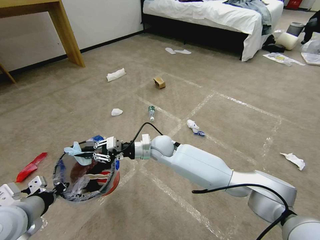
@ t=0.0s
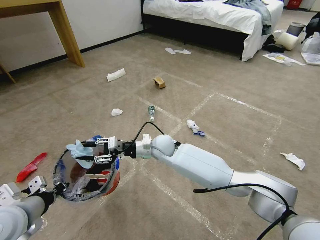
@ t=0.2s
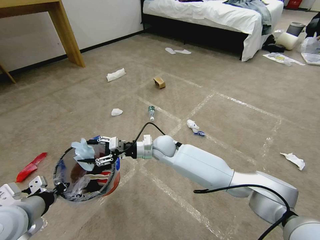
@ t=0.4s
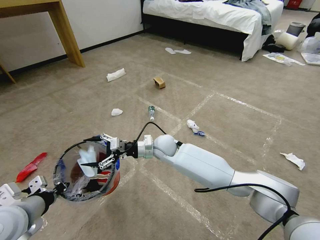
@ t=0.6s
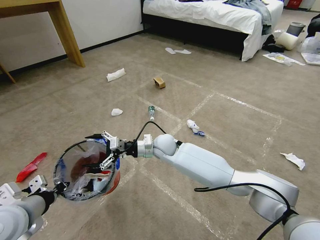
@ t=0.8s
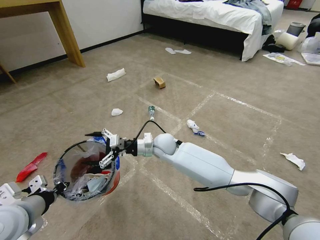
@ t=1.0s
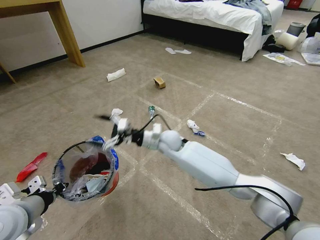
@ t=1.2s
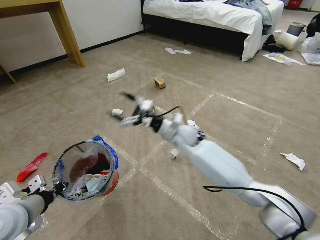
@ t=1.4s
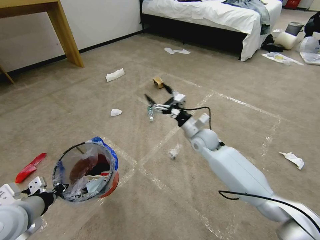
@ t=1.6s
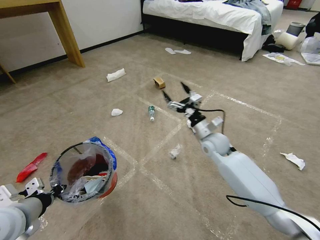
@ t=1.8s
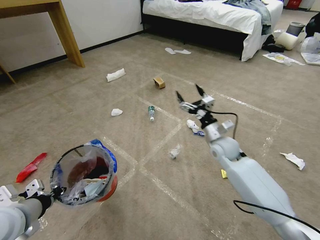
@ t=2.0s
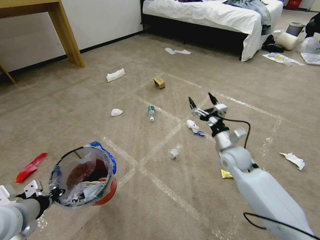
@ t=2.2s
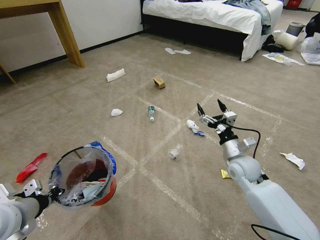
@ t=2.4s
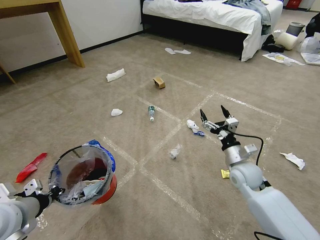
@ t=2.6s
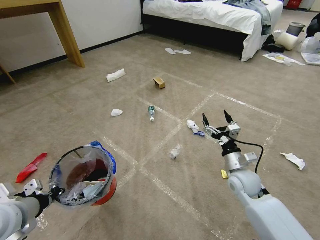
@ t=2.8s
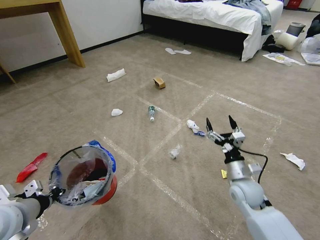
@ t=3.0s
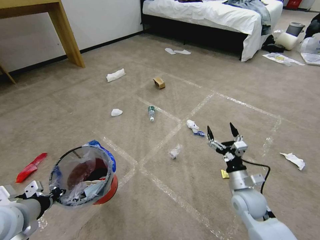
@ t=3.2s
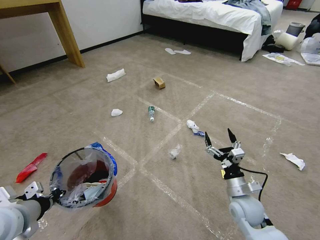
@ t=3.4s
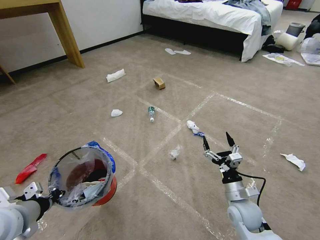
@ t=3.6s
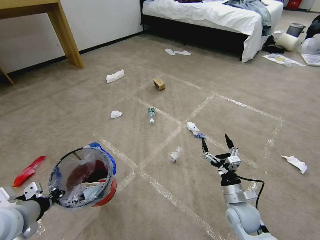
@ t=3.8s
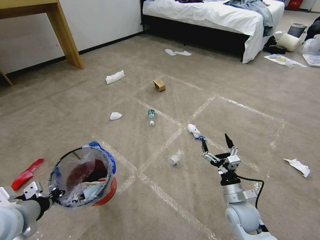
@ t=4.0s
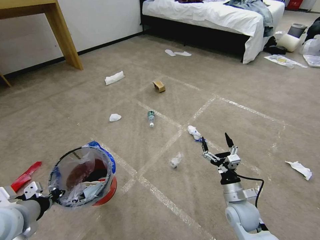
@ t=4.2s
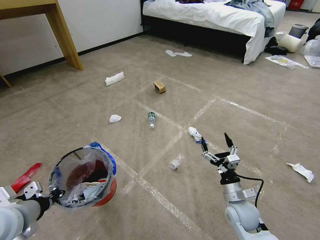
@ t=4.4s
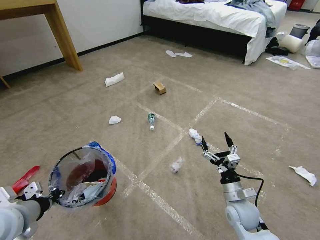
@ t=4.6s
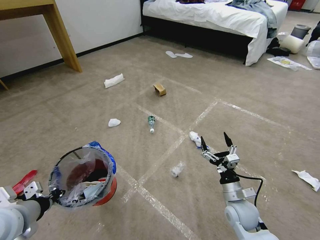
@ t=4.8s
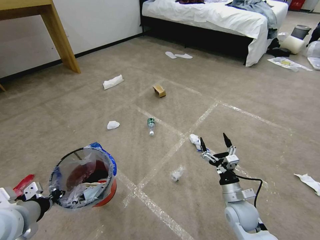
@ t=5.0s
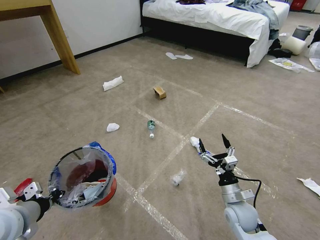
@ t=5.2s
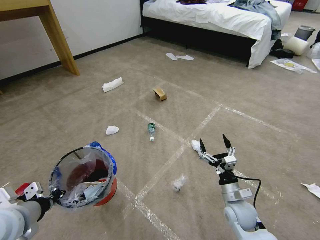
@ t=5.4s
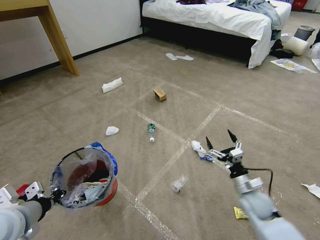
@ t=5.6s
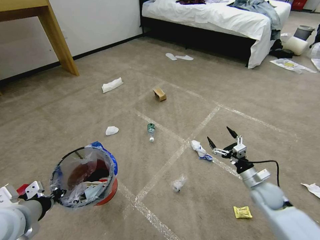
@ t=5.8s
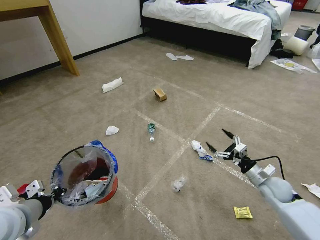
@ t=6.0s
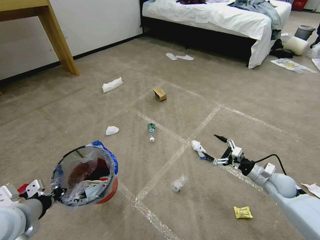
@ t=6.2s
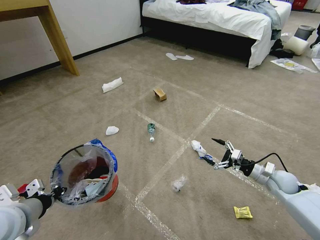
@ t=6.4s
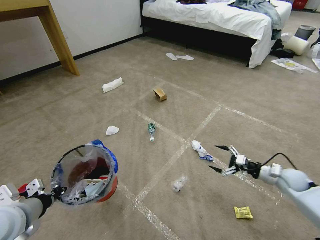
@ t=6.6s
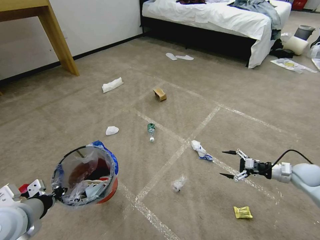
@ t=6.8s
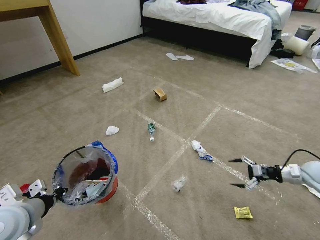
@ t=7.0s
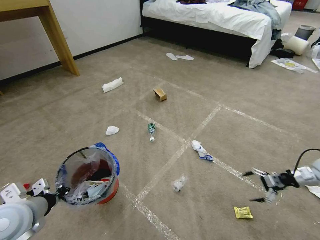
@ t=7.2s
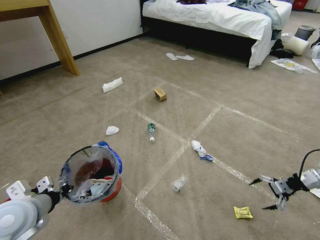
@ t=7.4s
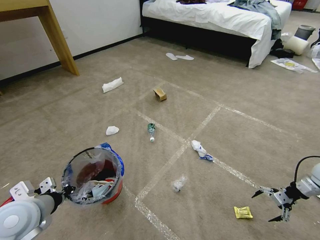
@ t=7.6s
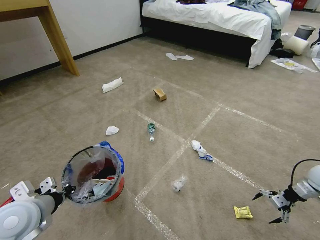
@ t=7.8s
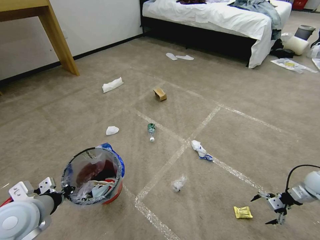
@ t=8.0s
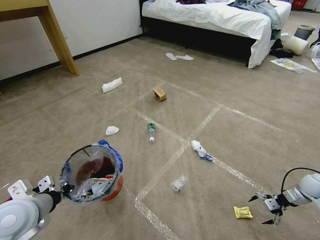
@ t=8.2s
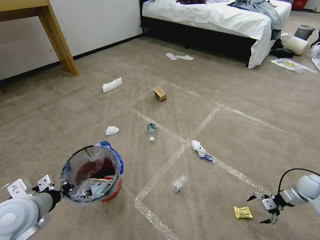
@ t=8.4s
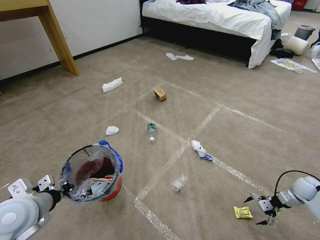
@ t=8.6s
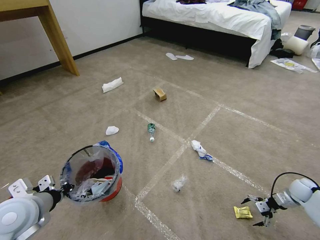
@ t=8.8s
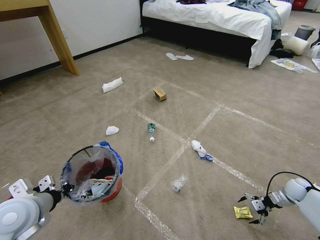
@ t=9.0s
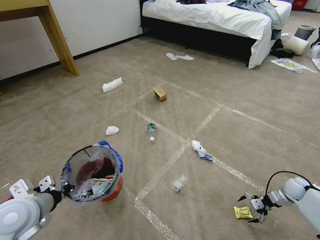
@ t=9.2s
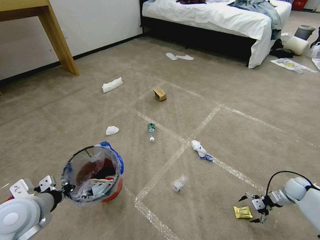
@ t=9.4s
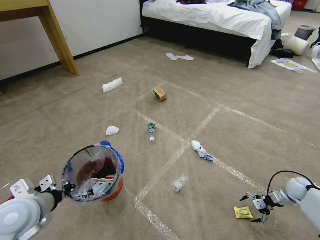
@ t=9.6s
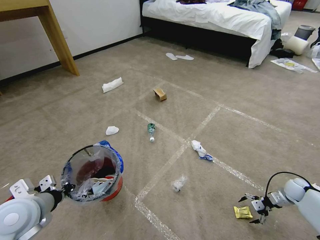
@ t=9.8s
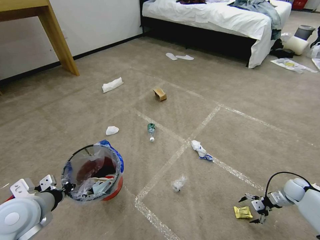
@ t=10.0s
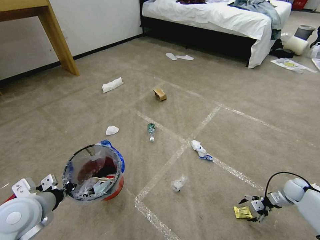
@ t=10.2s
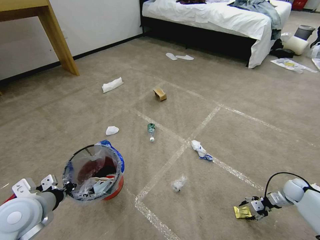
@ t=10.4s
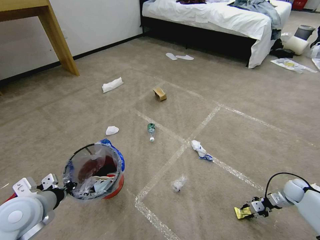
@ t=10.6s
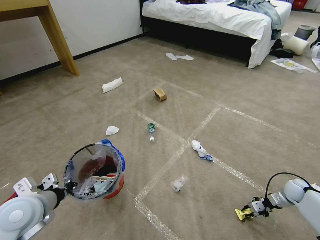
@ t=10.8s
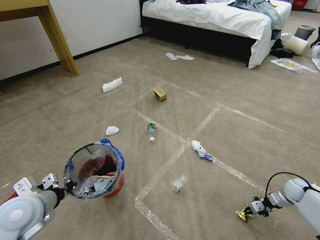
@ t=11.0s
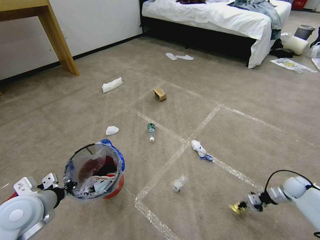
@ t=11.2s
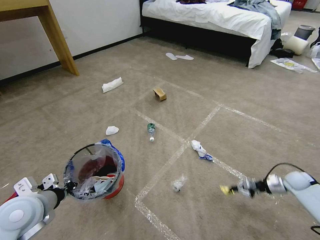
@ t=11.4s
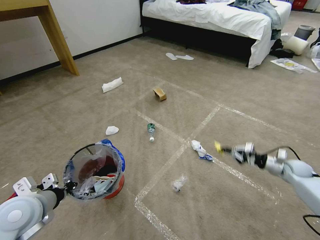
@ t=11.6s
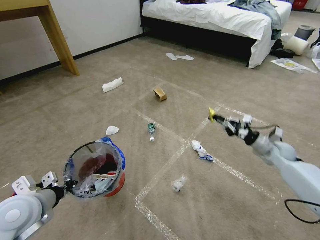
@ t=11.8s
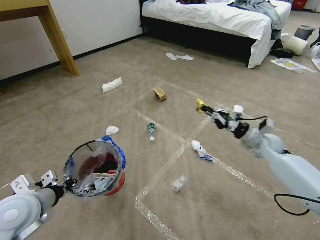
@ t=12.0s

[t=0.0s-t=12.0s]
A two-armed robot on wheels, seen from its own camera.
Task of the whole recording: Pick up the trash bin and place the garbage on the floor into it.
t=0.0s to t=1.6s: The right gripper travels to the right by about 15 cm, and opens up.
t=1.6s to t=3.0s: The right gripper goes approximately 20 cm backward, to the right and downward.
t=3.0s to t=4.4s: The right gripper is displaced downward and backward by some 5 cm.
t=4.4s to t=6.0s: The right gripper travels to the right and forward by roughly 15 cm.
t=6.0s to t=7.6s: The right gripper is displaced to the right by roughly 20 cm.
t=7.6s to t=9.0s: The right gripper goes approximately 15 cm downward.
t=9.0s to t=10.4s: The right gripper closes up.
t=10.4s to t=12.0s: The right gripper shifts roughly 25 cm upward, to the left and forward, and closes.

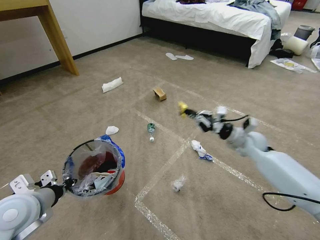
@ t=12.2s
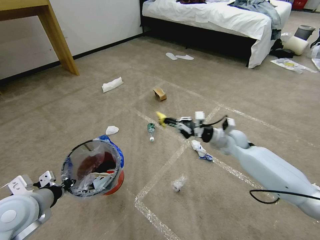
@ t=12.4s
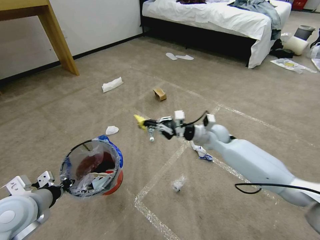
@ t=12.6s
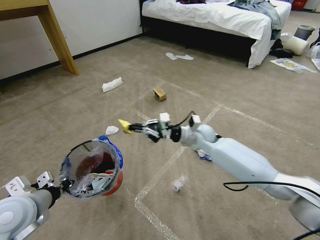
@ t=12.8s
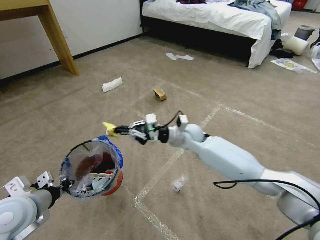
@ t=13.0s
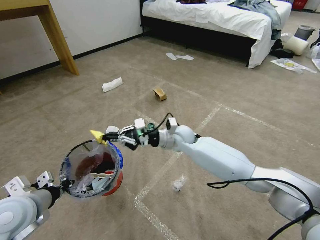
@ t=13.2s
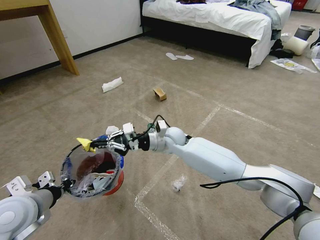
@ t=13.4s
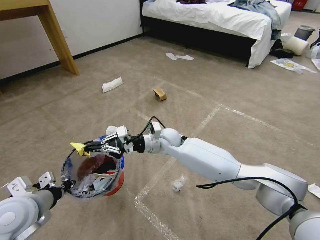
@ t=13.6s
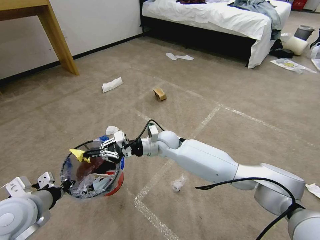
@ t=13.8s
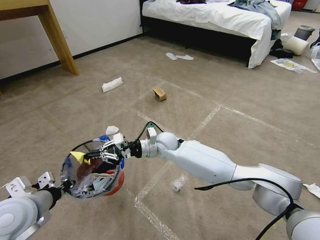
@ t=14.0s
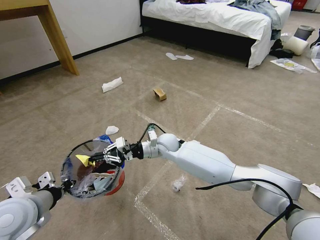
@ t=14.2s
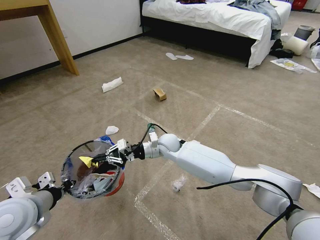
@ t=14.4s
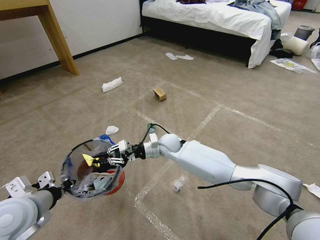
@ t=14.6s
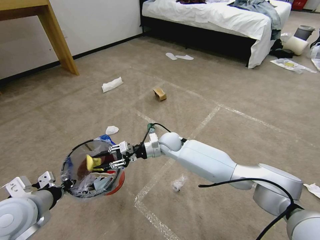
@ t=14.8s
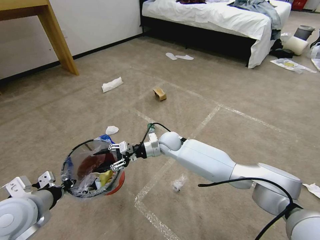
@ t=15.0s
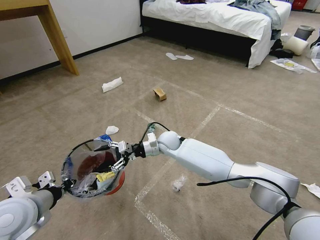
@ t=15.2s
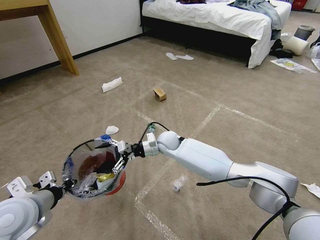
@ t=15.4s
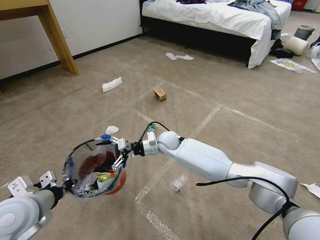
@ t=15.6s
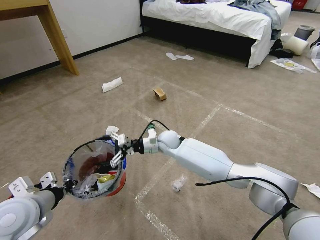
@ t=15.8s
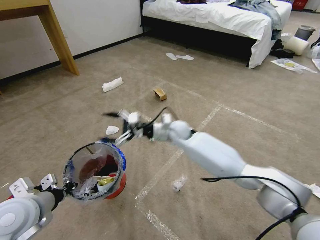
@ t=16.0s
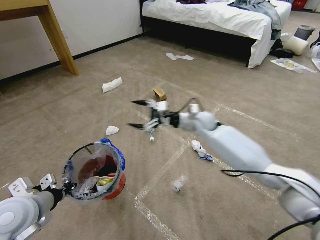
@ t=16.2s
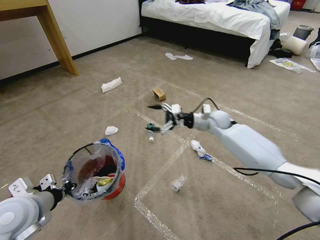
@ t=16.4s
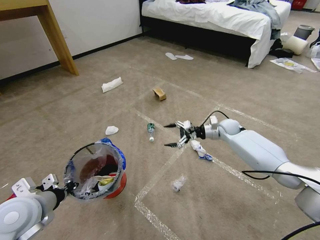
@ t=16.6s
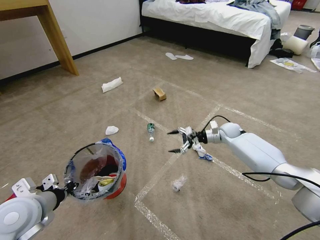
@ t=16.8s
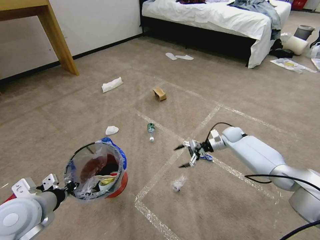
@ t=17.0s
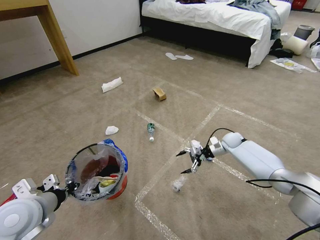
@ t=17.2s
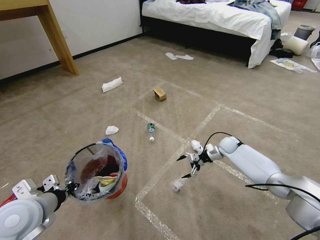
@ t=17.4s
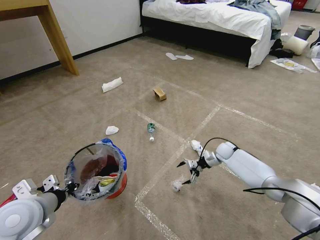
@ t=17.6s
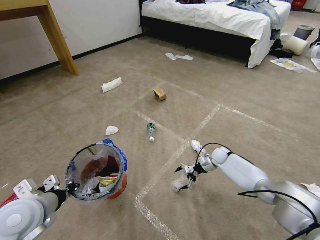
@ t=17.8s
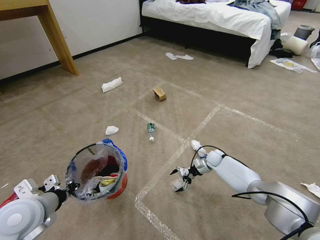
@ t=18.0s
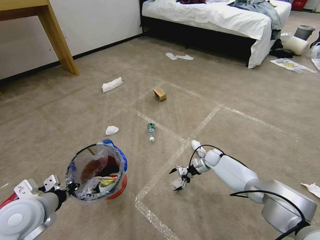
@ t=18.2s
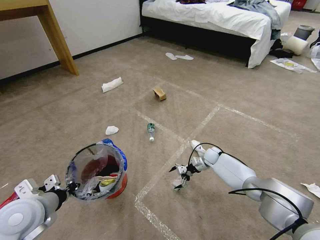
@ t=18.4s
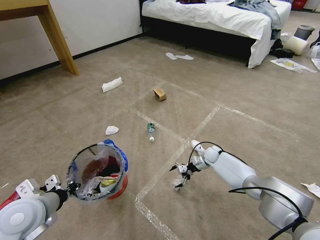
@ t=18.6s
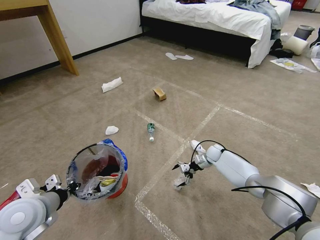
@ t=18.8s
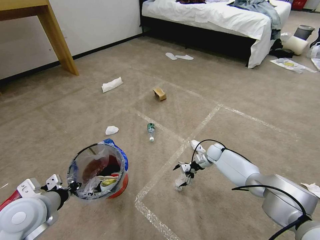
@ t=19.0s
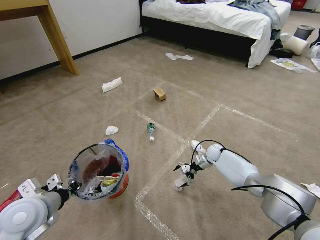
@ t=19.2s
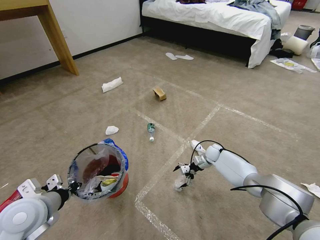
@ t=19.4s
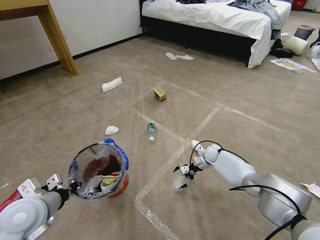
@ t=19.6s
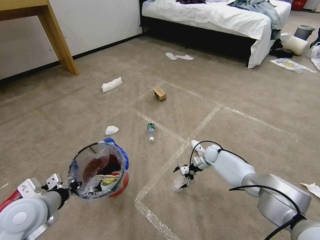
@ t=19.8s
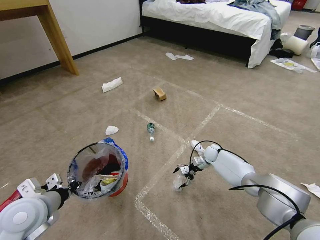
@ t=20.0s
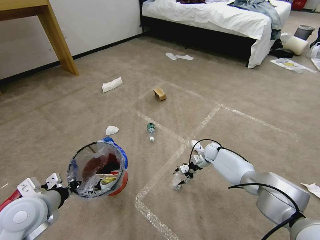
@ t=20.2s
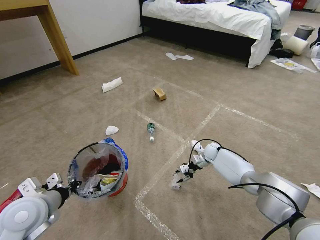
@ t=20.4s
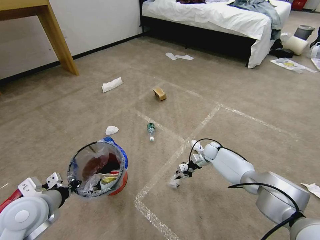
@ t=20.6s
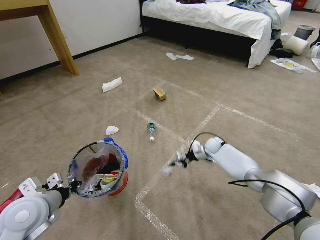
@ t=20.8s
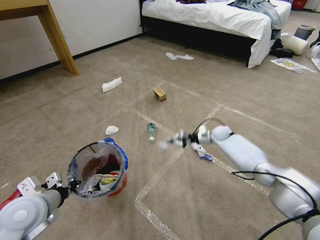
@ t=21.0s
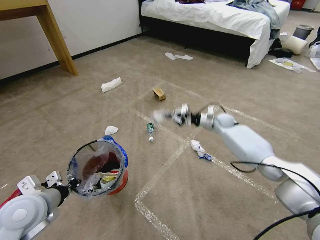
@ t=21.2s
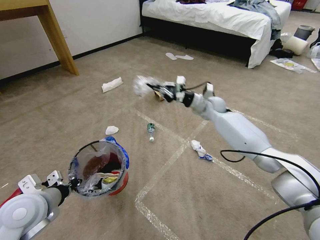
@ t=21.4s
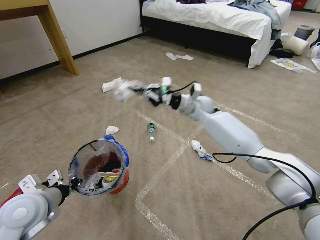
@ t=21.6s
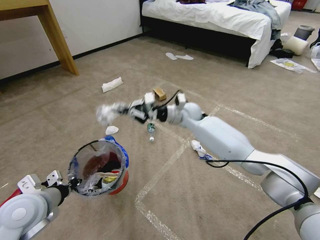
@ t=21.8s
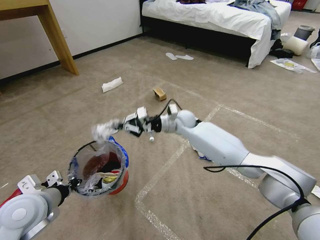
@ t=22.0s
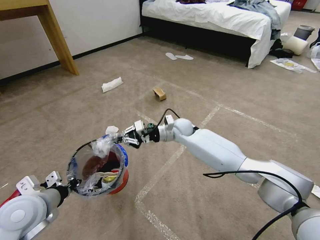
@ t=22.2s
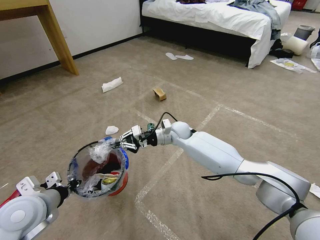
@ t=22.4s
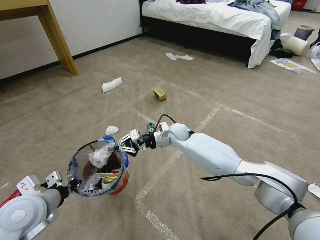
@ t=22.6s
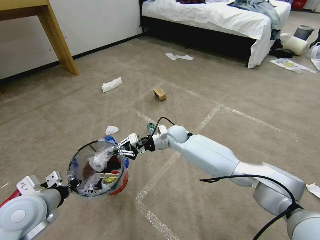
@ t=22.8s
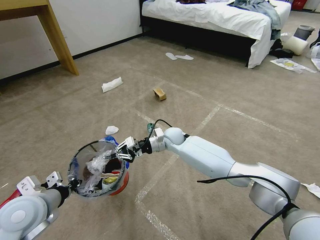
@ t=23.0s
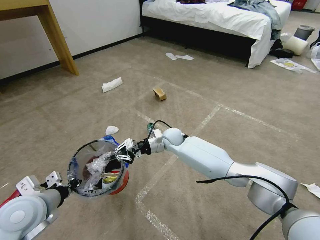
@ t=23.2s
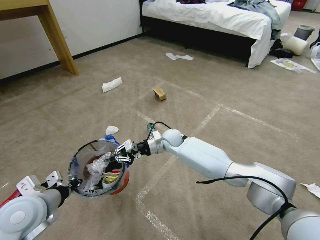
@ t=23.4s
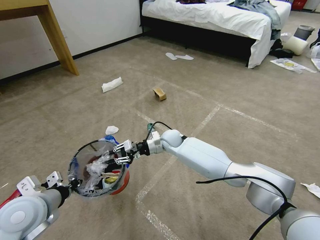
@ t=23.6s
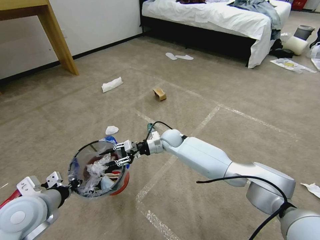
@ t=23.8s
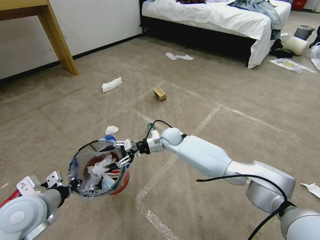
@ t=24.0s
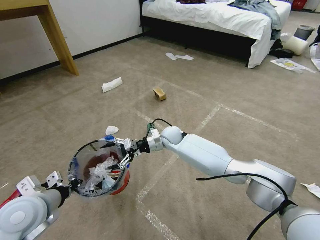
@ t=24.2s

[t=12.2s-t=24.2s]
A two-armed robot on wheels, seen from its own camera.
Task of the whole recording: Pick up the trash bin and place the garbage on the floor into it.
t=12.2s to t=13.8s: The right gripper is displaced to the left by roughly 30 cm.
t=13.8s to t=15.2s: The right gripper opens up.
t=15.2s to t=16.6s: The right gripper travels to the right by about 25 cm.
t=16.6s to t=18.2s: The right gripper travels downward by about 20 cm.
t=18.2s to t=19.8s: The grippers make only small movements.
t=19.8s to t=21.2s: The right gripper heads upward, covering some 15 cm, and closes its fingers.
t=21.2s to t=22.6s: The right gripper goes about 25 cm to the left.
t=22.6s to t=24.2s: The right gripper opens its fingers.
